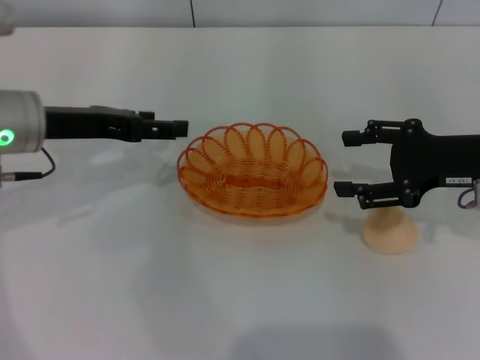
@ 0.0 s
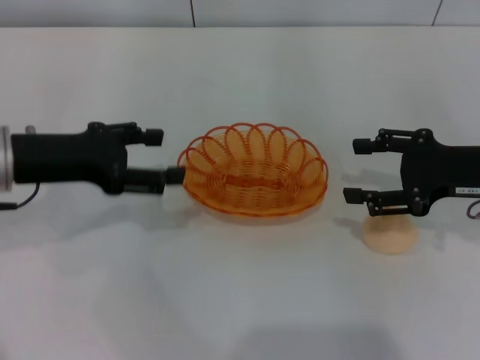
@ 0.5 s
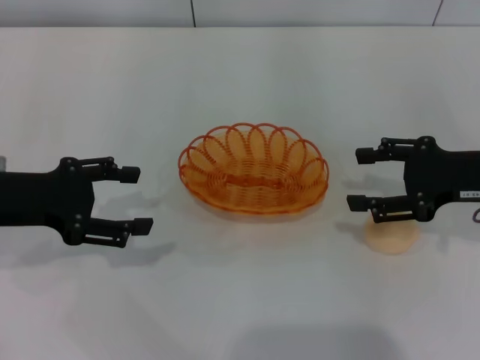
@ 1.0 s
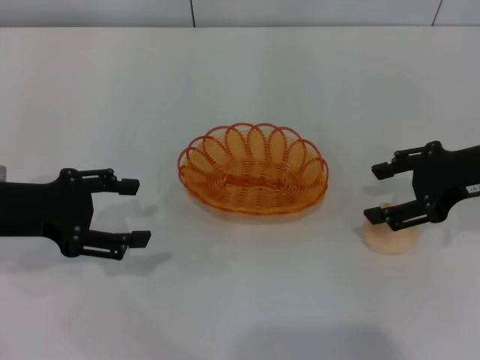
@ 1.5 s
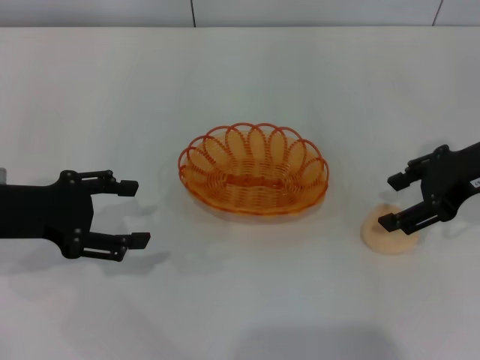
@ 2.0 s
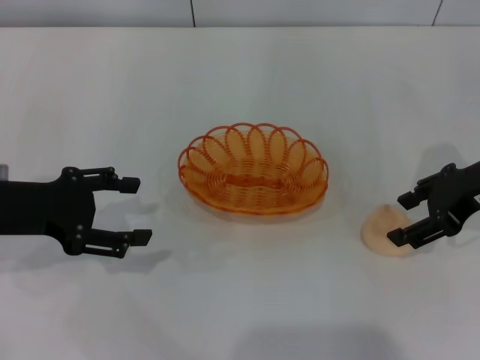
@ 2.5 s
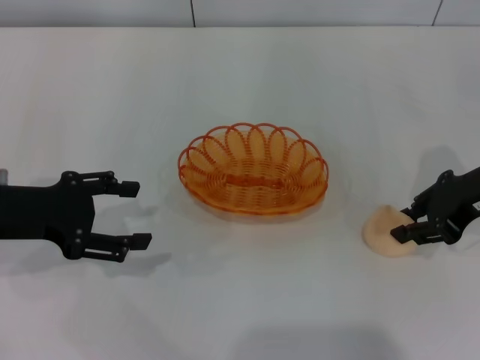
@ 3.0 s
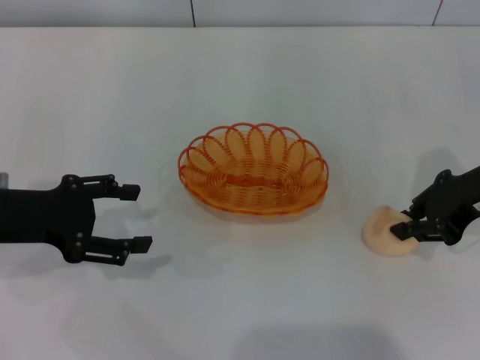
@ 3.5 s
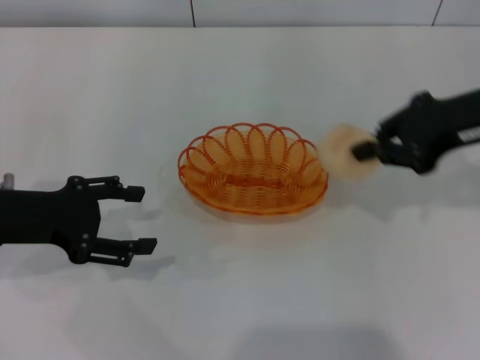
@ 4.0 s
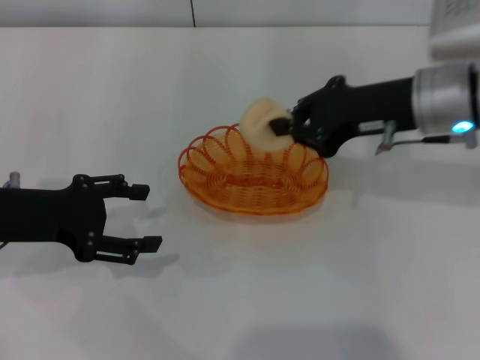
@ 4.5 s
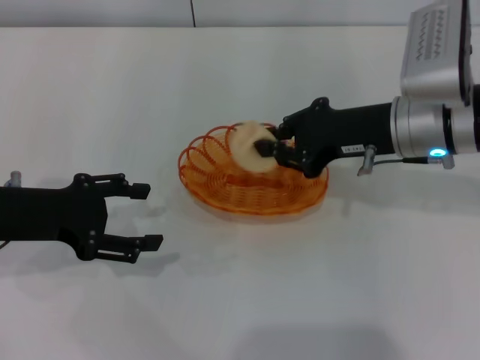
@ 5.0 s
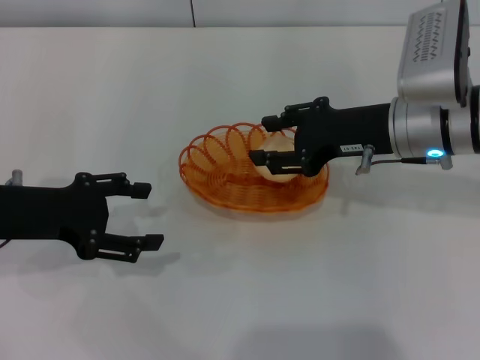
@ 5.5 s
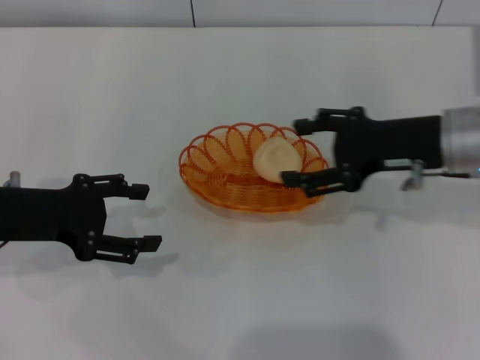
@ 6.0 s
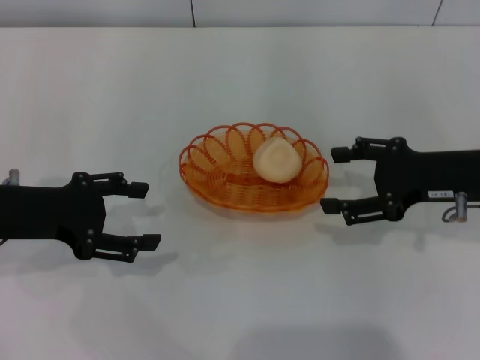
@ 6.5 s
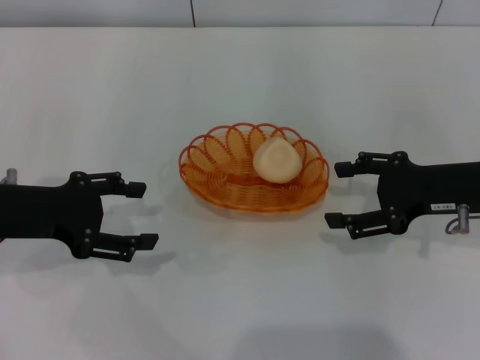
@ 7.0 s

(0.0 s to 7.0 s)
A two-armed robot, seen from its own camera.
Step, 0.0 s - 3.5 s: Pick up the egg yolk pastry with the right gripper.
Step, 4.0 s - 5.5 s: Place the egg yolk pastry into the basket with the right gripper.
0.0 s - 2.0 s: The left gripper goes about 10 cm backward and to the left.
2.0 s - 3.5 s: The right gripper closes its fingers.
3.5 s - 5.0 s: The right gripper travels to the left by about 10 cm.
5.0 s - 7.0 s: The right gripper heads to the right, covering some 10 cm, and opens.
